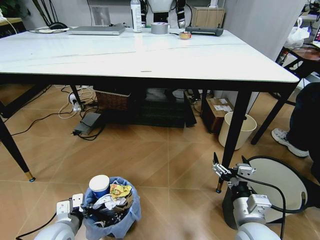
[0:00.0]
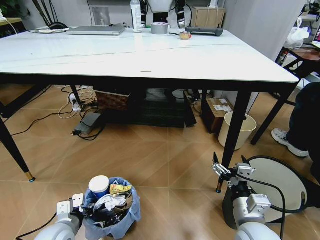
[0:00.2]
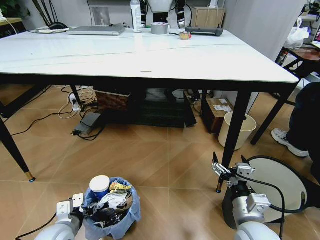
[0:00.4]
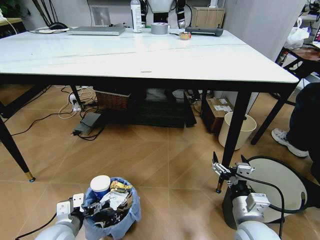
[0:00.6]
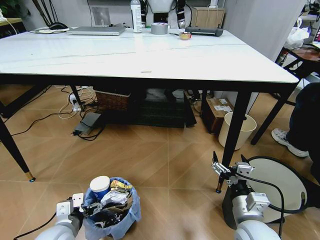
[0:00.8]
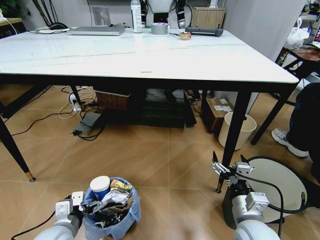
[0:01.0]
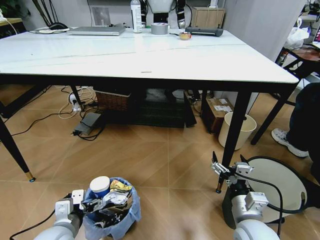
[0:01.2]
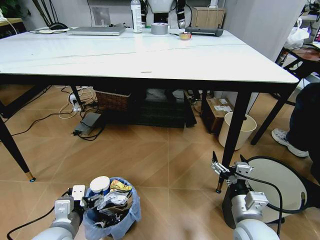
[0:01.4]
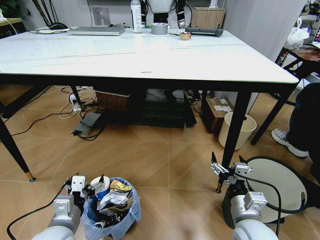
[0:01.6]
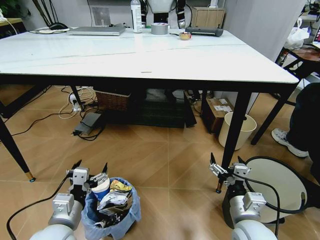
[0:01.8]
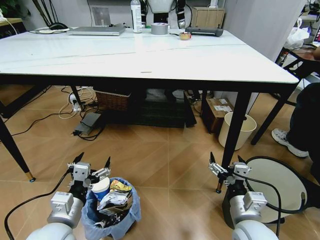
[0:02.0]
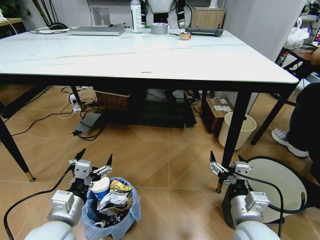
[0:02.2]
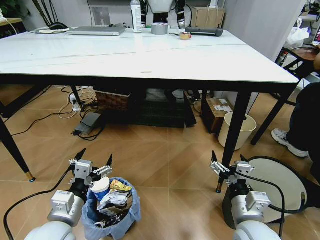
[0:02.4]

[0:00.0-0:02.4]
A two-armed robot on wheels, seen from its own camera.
Task of the whole recording: Pick up the trash bin and place the trash from the table into it.
0:00.0 to 0:01.2: The left gripper changes place by roughly 5 cm, and opens up.
0:01.2 to 0:02.4: The left gripper goes roughly 5 cm upward.

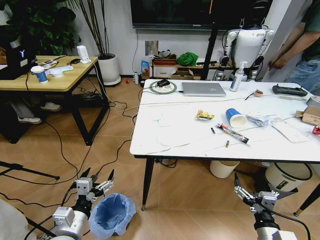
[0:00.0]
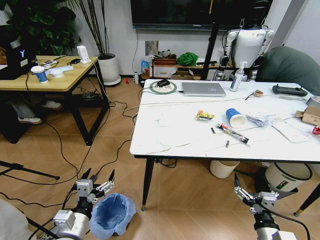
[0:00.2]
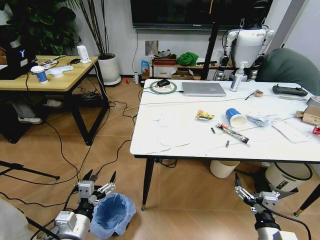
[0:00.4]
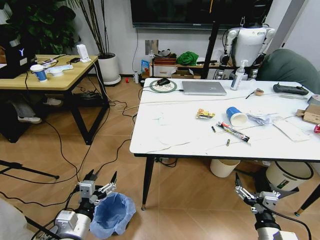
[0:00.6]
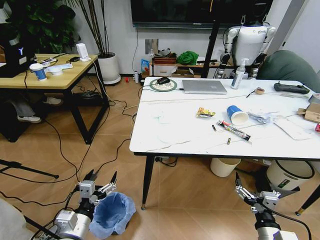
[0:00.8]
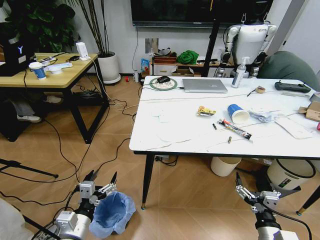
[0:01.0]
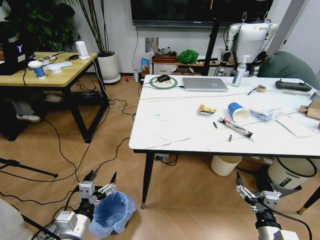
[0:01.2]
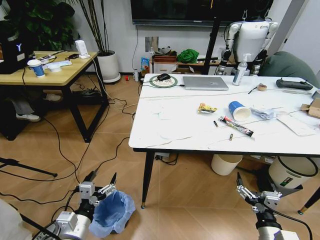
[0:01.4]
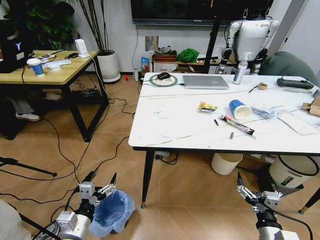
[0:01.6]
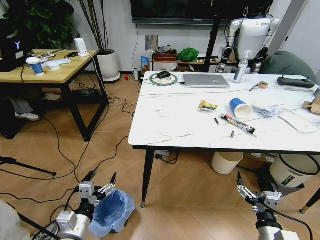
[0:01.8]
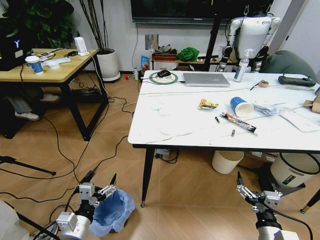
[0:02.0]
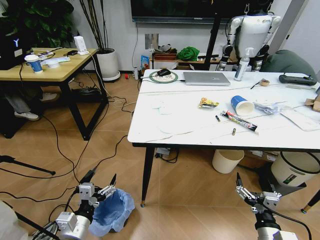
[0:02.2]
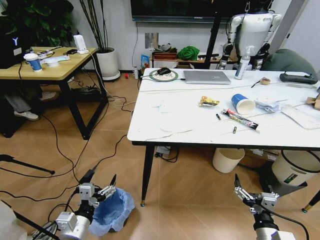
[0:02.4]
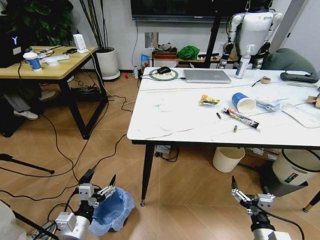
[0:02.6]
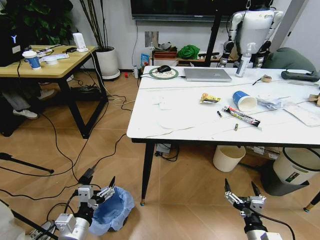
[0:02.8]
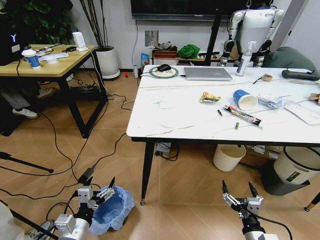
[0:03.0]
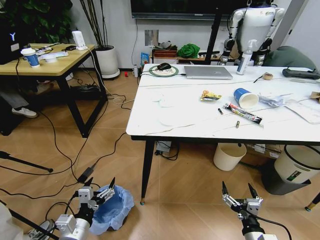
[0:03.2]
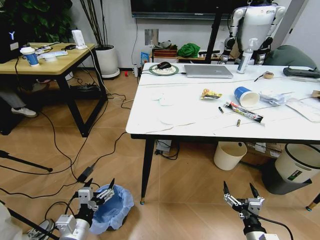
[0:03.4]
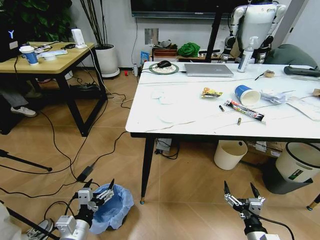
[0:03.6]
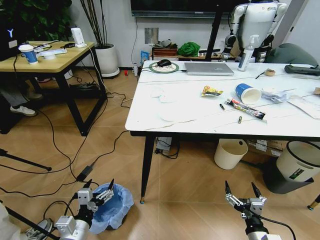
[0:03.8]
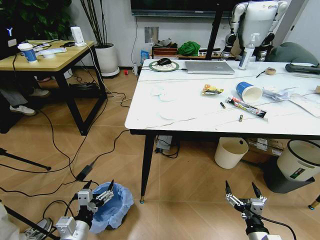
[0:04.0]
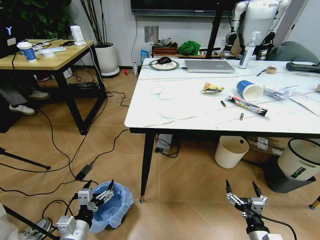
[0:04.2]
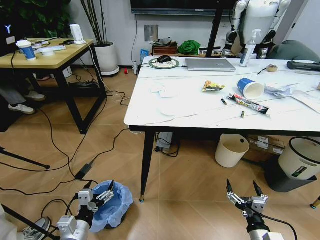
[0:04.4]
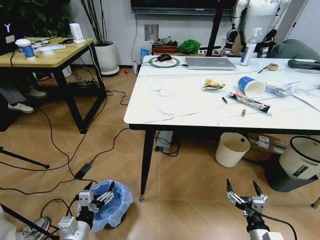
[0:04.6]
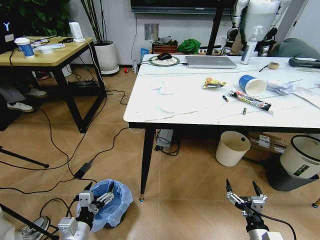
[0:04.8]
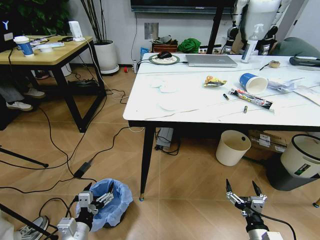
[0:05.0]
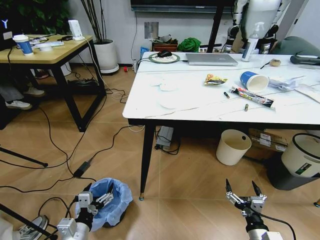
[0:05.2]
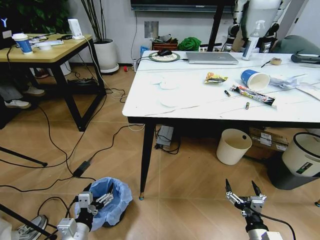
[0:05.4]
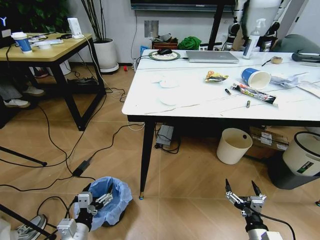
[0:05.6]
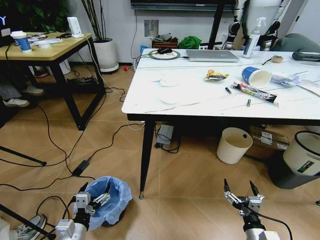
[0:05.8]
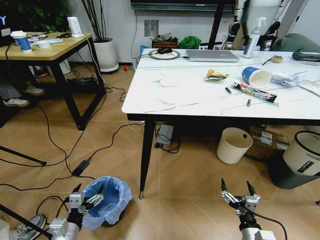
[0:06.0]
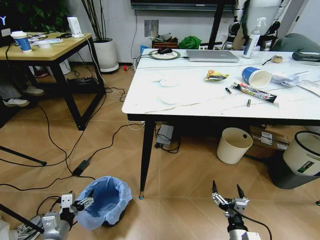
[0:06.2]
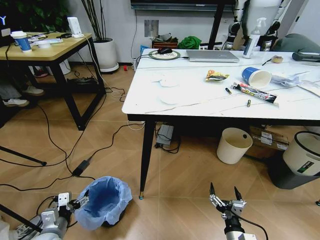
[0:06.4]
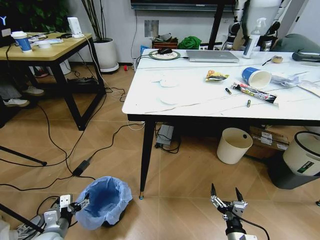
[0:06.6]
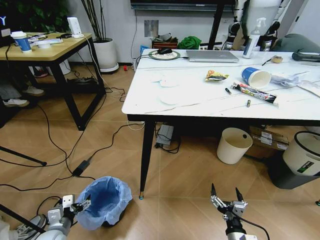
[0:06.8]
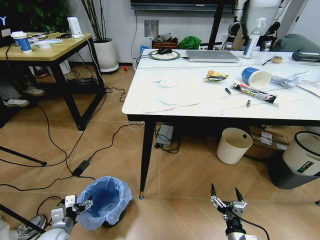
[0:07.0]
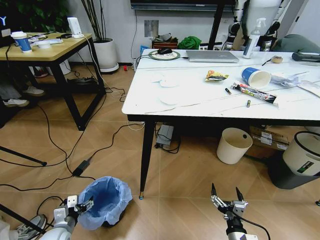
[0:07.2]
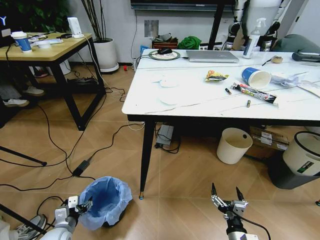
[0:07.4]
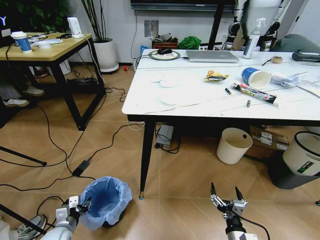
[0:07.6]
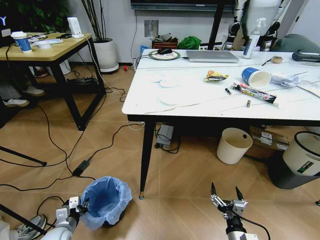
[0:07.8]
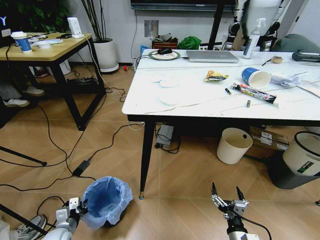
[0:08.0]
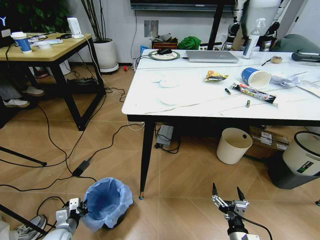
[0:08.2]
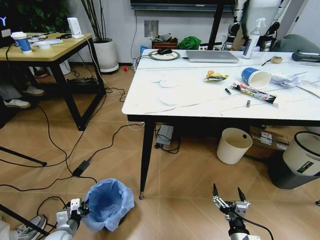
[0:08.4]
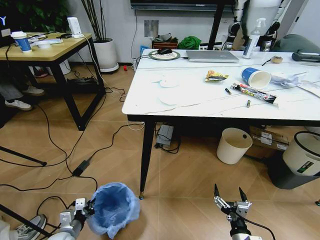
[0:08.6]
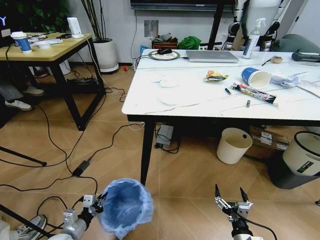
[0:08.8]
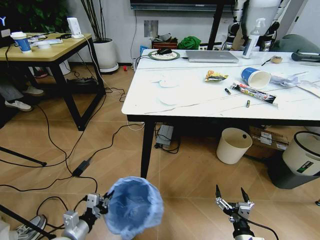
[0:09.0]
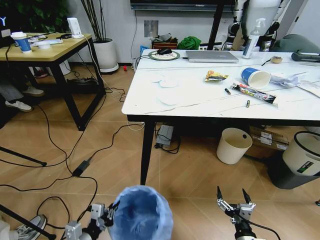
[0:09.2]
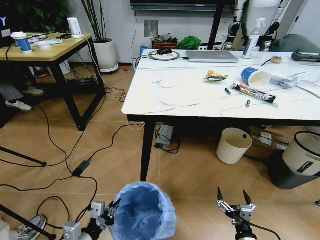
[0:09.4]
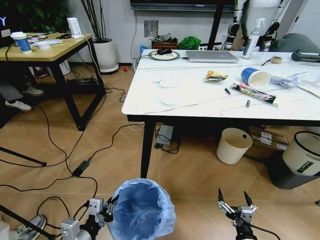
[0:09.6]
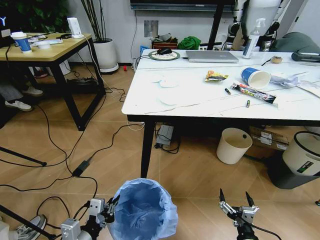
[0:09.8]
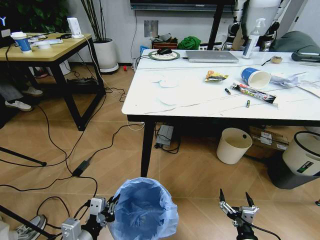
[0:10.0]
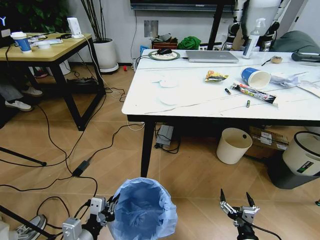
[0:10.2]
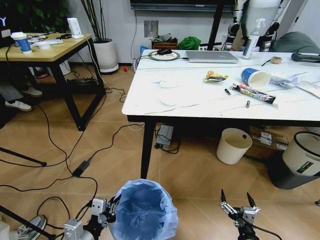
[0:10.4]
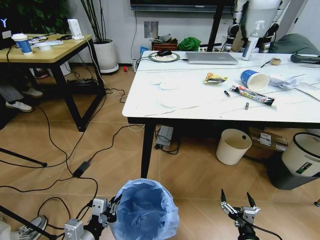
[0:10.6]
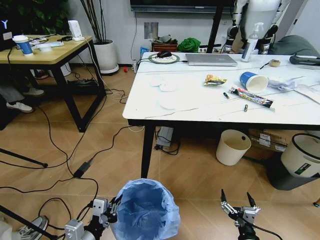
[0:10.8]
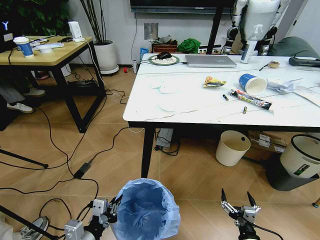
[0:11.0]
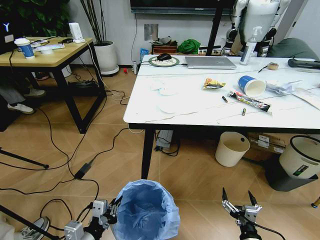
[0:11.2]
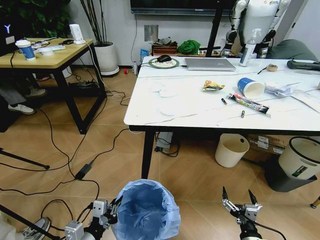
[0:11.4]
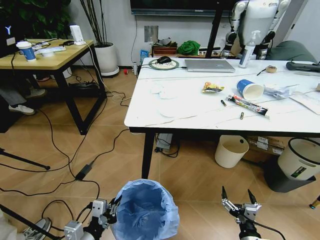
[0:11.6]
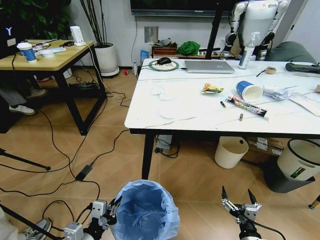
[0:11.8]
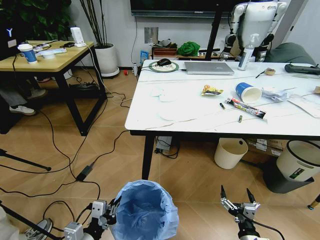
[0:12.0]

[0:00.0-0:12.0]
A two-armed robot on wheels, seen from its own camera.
Task of the whole recording: Pick up the trash bin and place the trash from the table into it.
0:04.4 to 0:06.0: The left gripper ends up roughly 5 cm from where it was.
0:06.0 to 0:07.6: The left gripper heads downward, forward and to the left, covering approximately 10 cm, and closes its fingers.
0:07.6 to 0:09.0: The left gripper shifts approximately 10 cm upward and to the right, and closes.
0:09.0 to 0:10.4: The left gripper travels upward, to the right and backward by about 15 cm.

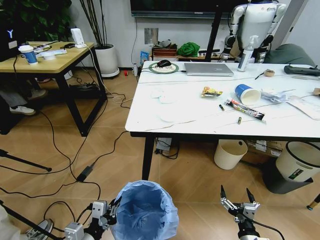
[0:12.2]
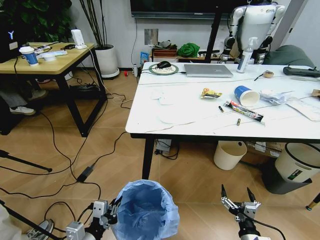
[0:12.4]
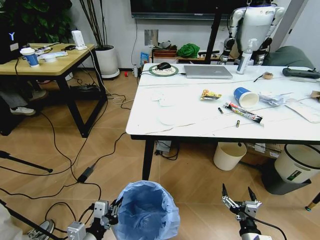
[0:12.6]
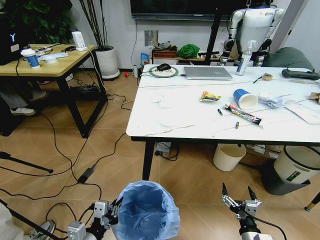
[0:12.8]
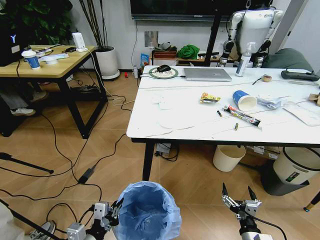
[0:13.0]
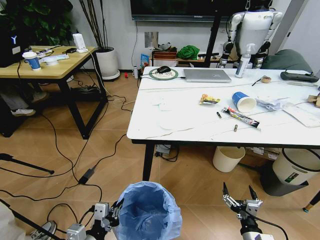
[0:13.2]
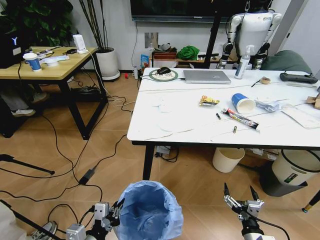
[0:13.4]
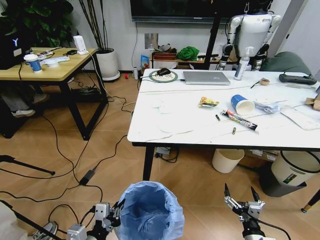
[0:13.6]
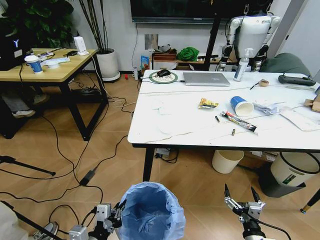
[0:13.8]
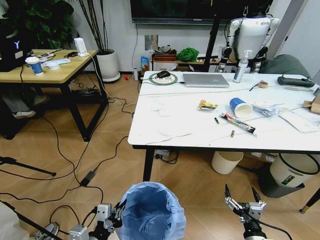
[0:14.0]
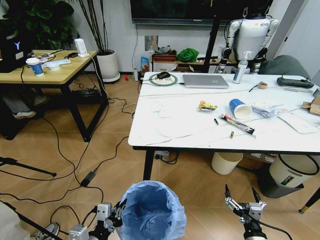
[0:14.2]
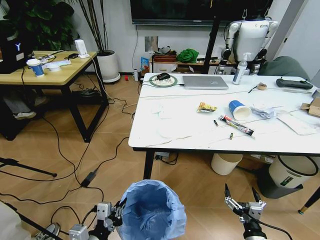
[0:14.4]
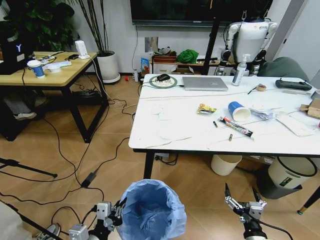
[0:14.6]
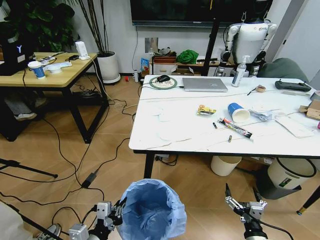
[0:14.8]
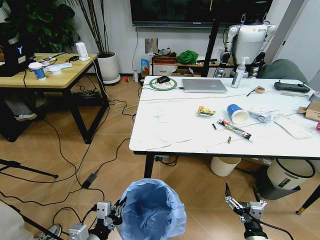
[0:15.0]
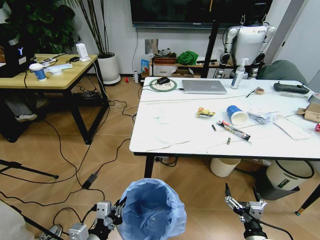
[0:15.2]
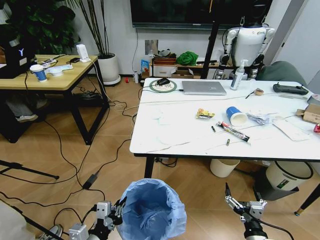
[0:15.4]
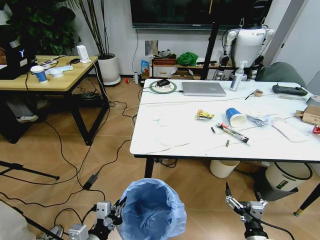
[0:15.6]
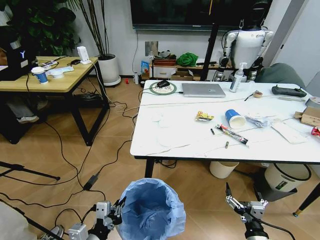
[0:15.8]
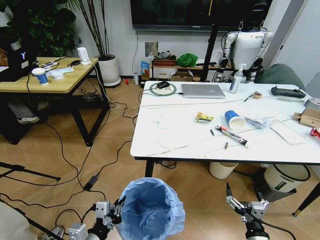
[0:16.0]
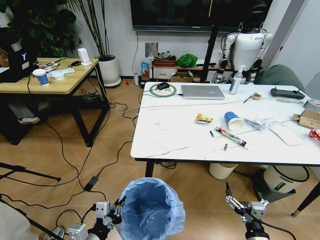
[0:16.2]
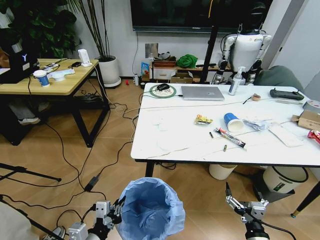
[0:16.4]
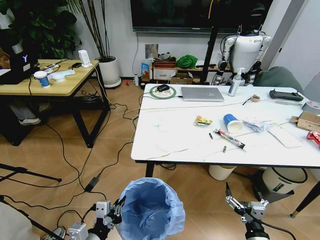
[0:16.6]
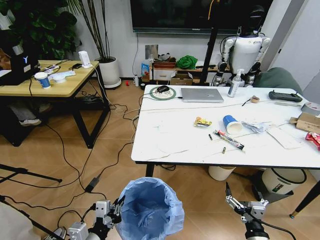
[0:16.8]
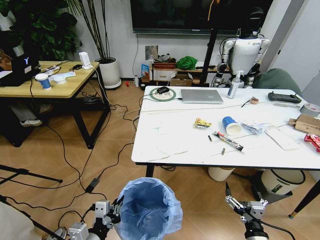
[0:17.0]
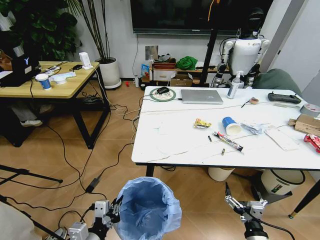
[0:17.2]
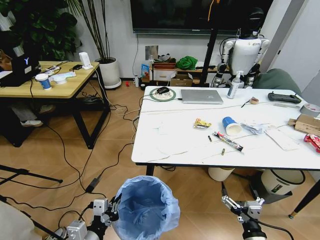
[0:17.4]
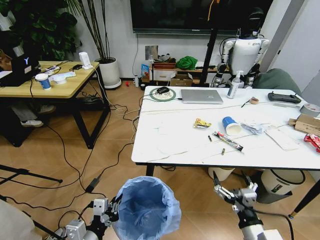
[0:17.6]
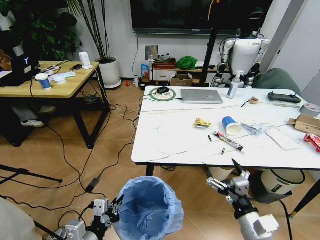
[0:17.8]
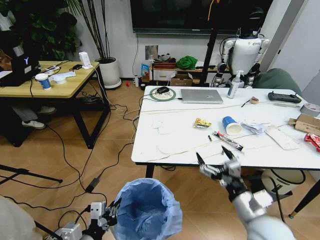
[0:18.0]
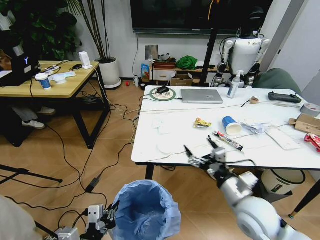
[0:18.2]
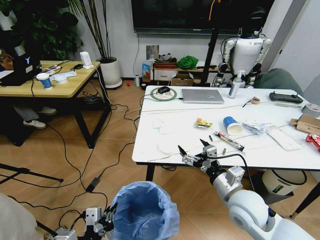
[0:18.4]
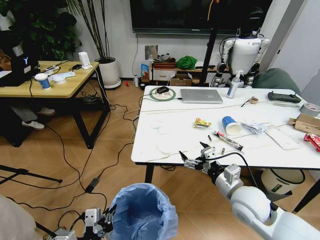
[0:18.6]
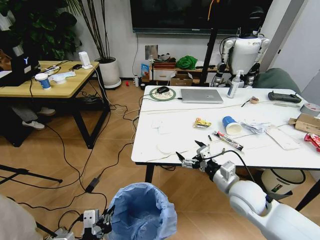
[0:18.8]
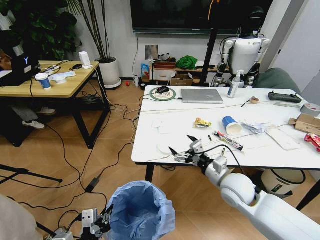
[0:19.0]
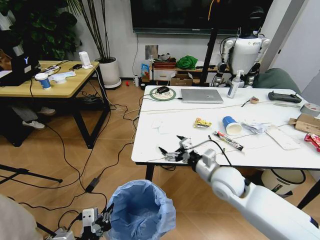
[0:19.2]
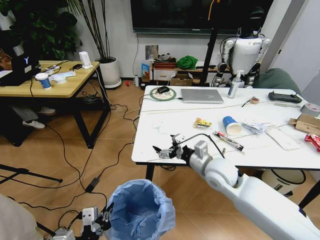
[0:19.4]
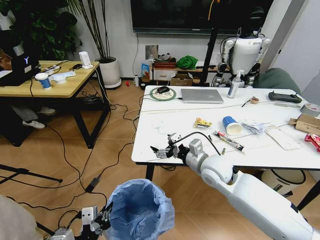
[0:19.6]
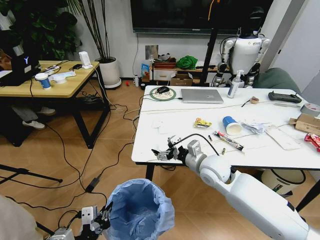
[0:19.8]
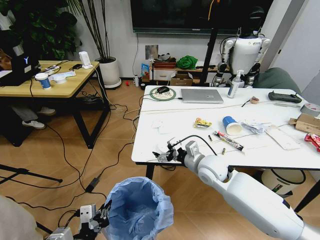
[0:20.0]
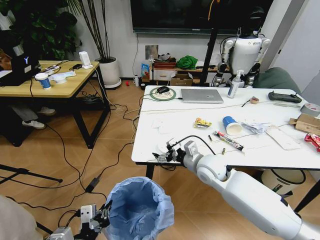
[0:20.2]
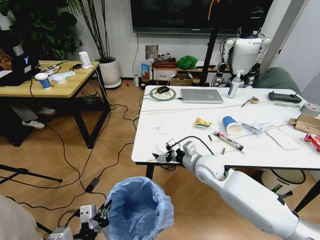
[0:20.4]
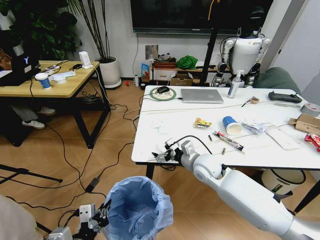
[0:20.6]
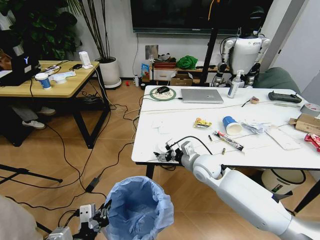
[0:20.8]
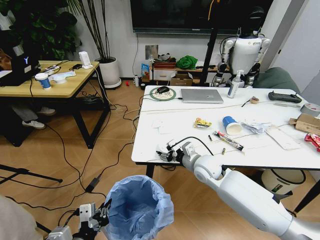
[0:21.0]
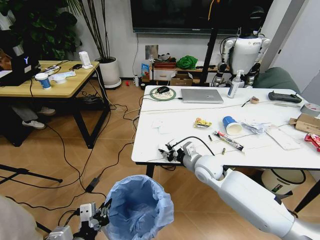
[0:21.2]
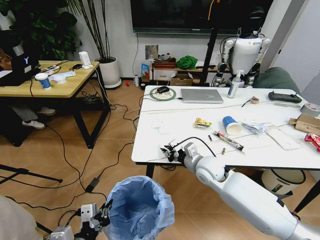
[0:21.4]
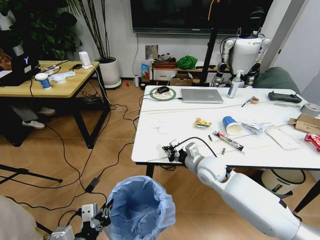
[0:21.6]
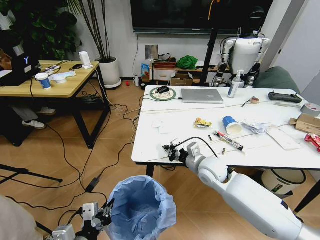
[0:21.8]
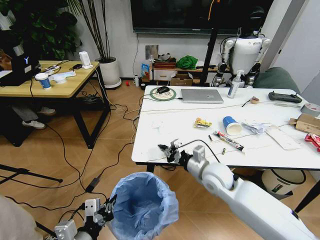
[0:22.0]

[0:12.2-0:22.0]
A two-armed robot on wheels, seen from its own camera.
Task of the whole recording: Pick up the trash bin and place the trash from the table into it.
0:16.4 to 0:17.8: The right gripper travels upward by some 10 cm.
0:17.8 to 0:19.2: The right gripper moves forward, about 20 cm.
0:19.2 to 0:20.6: The right gripper heads forward, covering about 5 cm.
0:20.6 to 0:22.0: The right gripper moves backward, some 5 cm, and closes its fingers.
